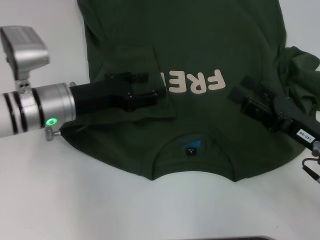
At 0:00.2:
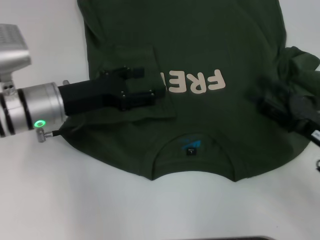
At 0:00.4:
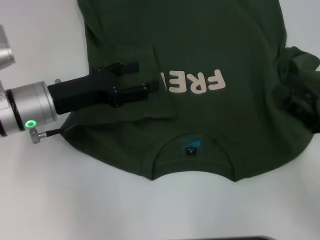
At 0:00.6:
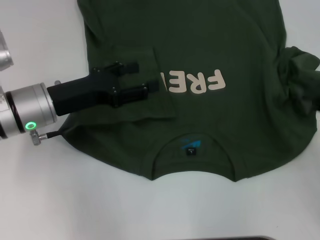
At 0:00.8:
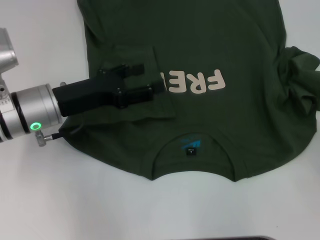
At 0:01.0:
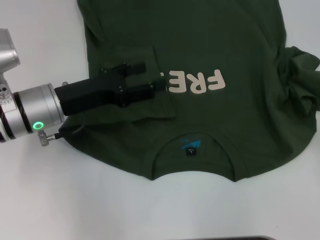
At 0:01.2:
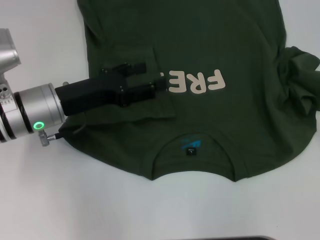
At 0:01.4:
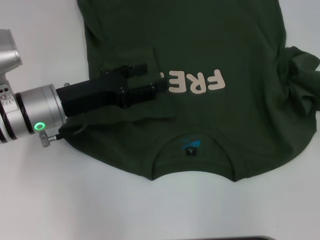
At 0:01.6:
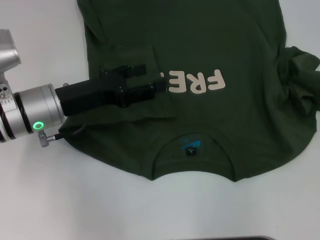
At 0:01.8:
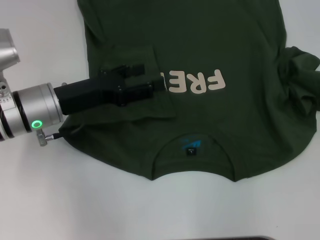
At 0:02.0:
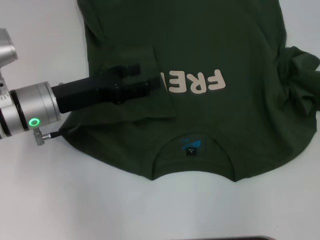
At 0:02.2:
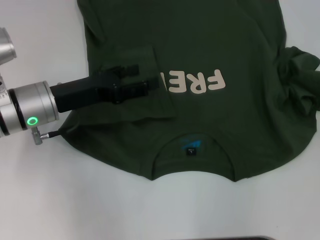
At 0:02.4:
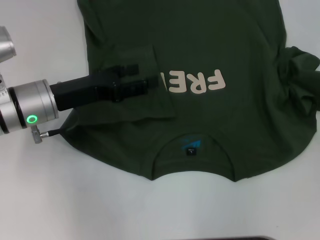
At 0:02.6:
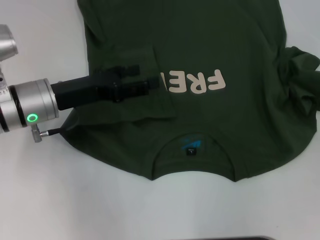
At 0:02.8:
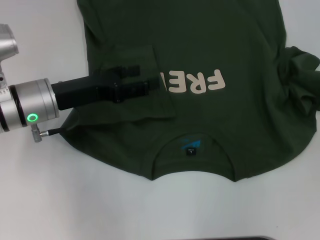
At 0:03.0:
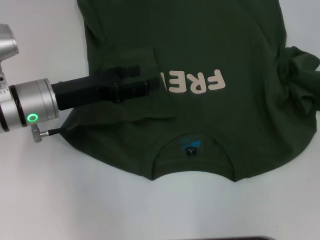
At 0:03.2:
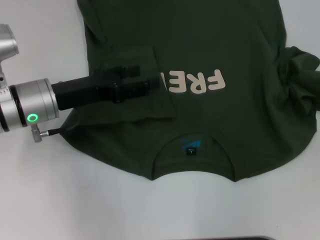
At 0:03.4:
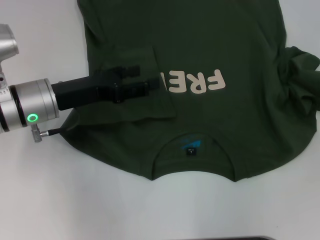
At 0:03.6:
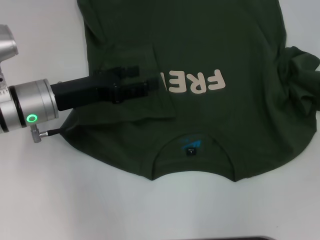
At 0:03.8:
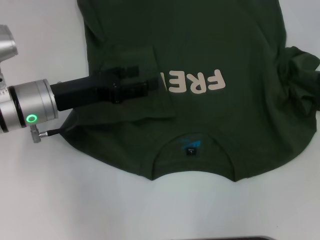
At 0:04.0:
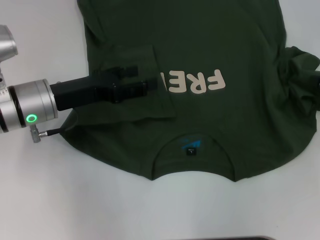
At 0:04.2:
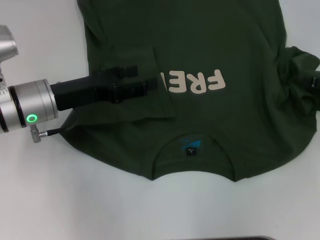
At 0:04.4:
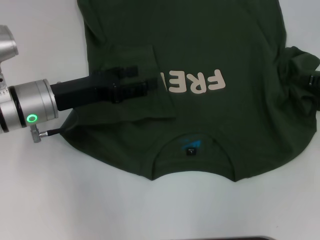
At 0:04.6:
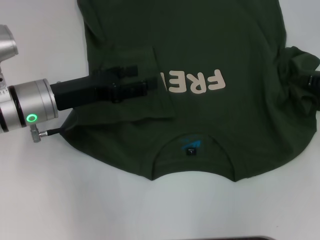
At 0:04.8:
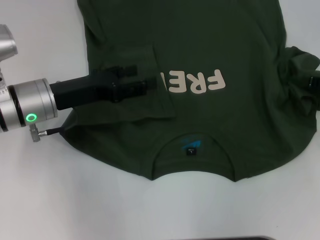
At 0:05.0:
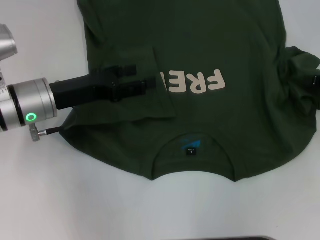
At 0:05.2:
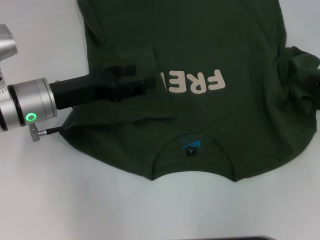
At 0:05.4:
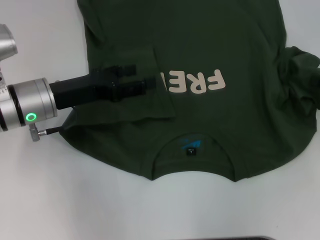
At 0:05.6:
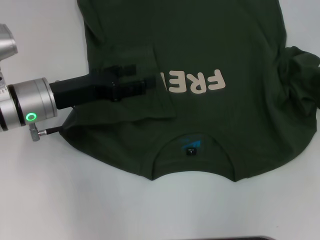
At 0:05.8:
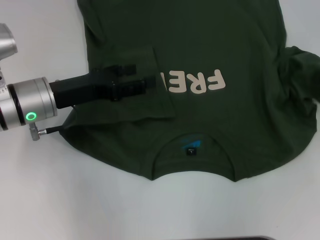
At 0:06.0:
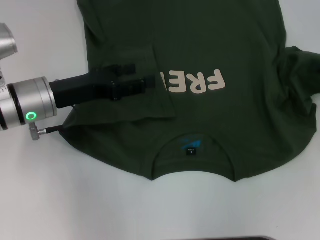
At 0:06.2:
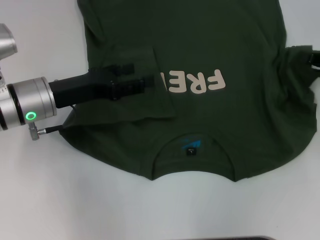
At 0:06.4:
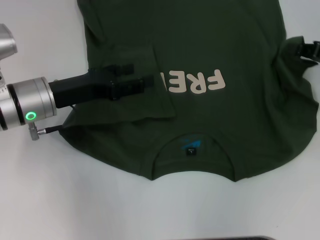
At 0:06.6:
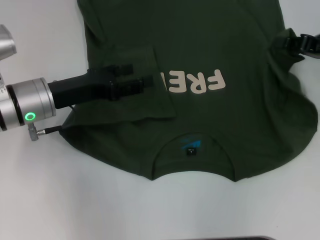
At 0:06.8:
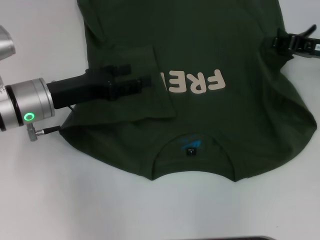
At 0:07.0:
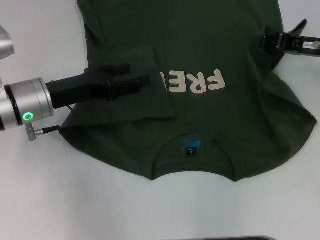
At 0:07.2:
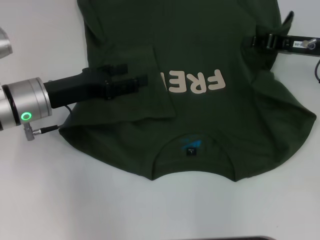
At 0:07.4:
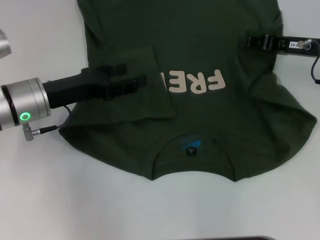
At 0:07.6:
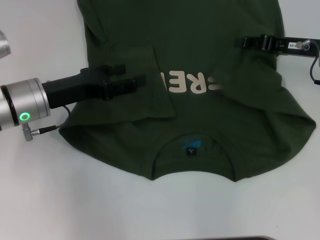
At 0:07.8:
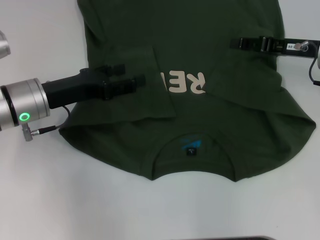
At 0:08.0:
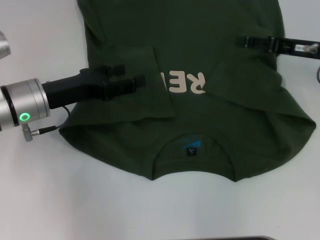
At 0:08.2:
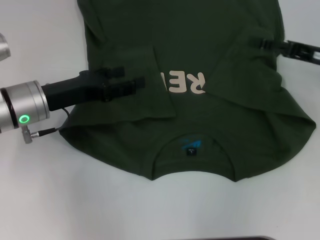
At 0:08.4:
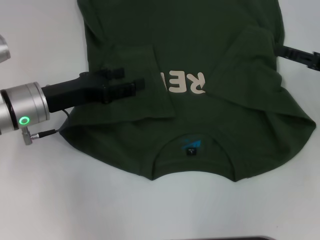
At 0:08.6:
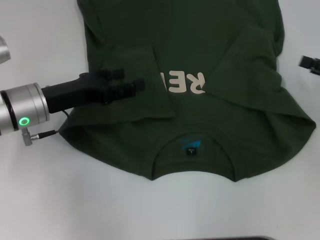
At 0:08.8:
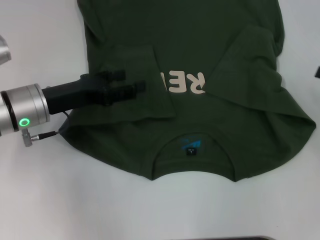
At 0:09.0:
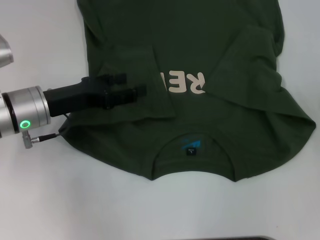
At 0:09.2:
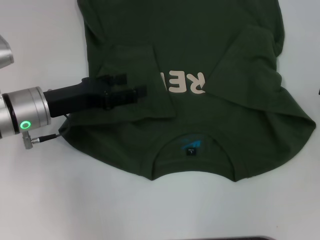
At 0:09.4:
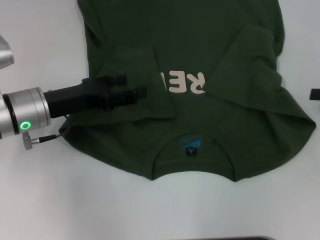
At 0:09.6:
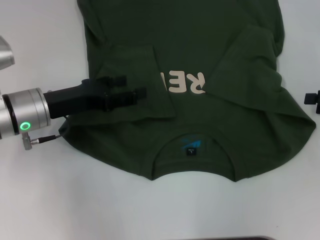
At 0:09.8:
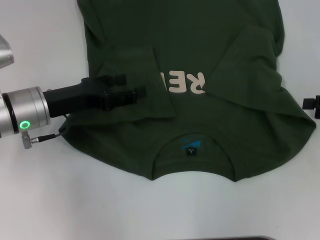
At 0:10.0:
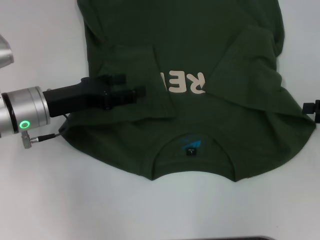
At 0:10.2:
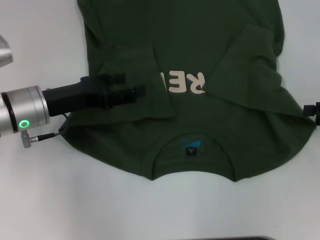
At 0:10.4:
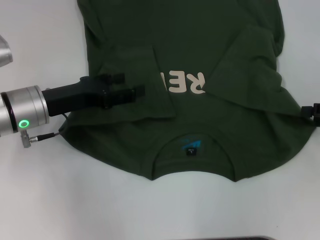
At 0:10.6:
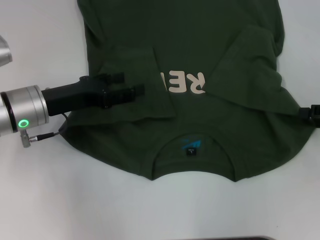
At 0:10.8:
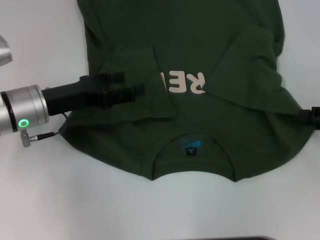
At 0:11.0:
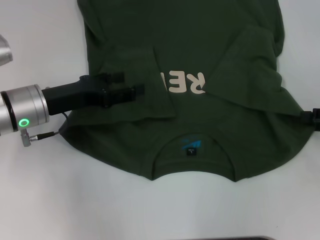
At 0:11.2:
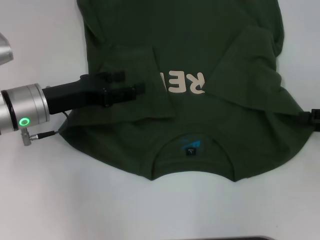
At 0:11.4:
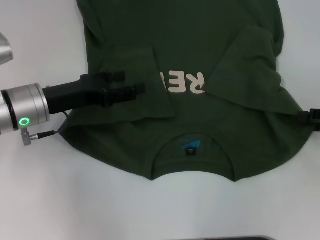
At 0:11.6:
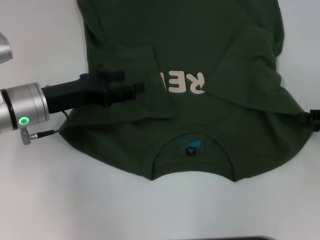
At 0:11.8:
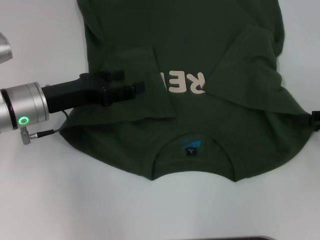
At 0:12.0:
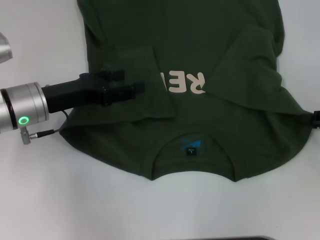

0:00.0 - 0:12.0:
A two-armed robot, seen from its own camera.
Step, 0:00.8 - 0:08.4: Fold the bottom right sleeve with your right hand.
0:00.0 - 0:01.6: The left gripper opens, while the right gripper is displaced to the right by about 15 cm.
0:06.0 - 0:07.6: The right gripper moves to the left and forward, roughly 10 cm.
0:07.6 - 0:09.0: The right gripper heads to the right and backward, covering about 15 cm, and opens its fingers.
0:09.0 - 0:10.4: The grippers move only a little.
0:10.4 - 0:12.0: Both grippers stay put.

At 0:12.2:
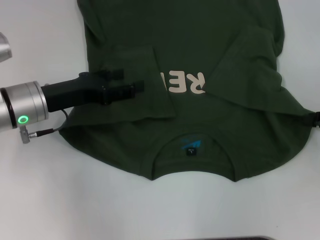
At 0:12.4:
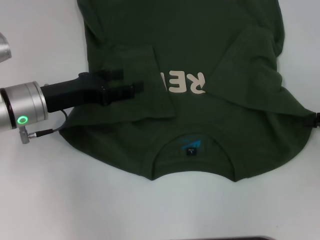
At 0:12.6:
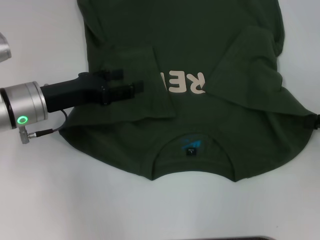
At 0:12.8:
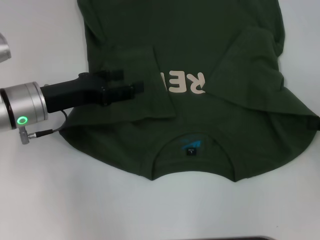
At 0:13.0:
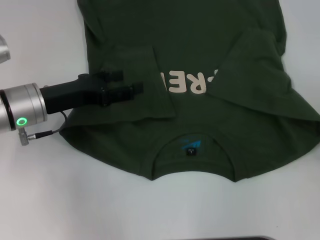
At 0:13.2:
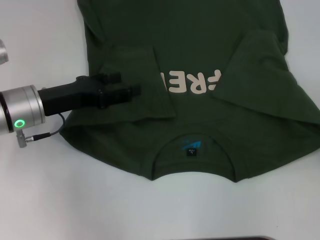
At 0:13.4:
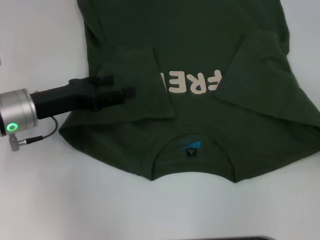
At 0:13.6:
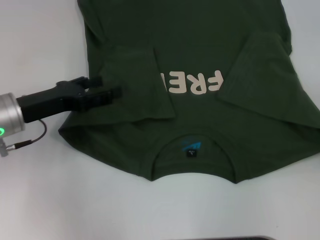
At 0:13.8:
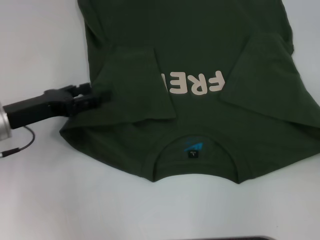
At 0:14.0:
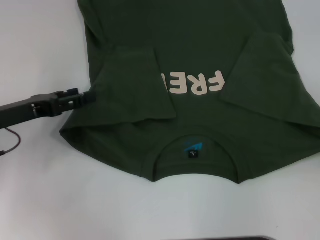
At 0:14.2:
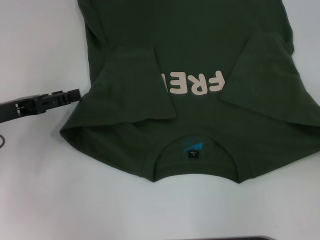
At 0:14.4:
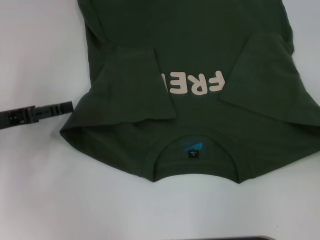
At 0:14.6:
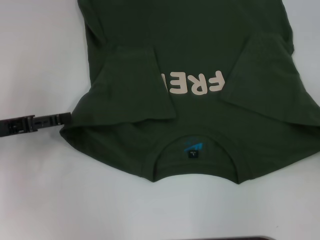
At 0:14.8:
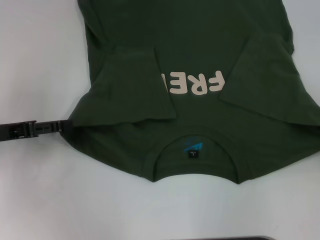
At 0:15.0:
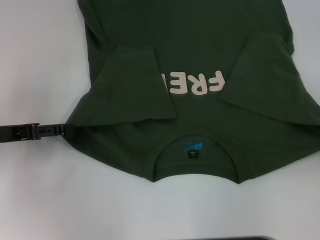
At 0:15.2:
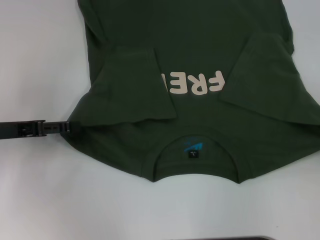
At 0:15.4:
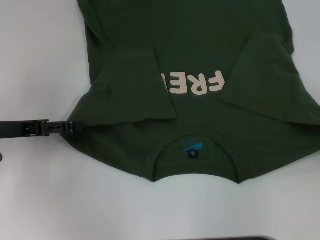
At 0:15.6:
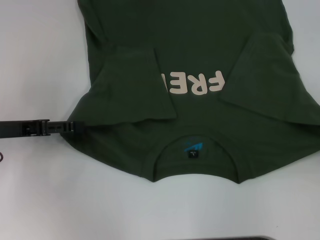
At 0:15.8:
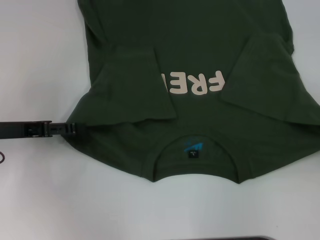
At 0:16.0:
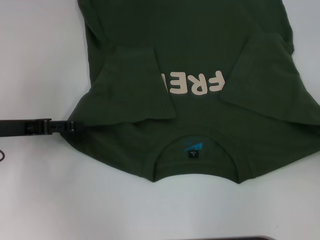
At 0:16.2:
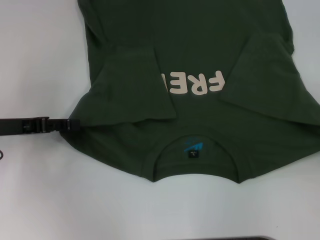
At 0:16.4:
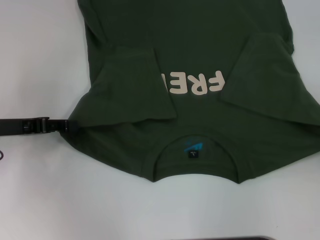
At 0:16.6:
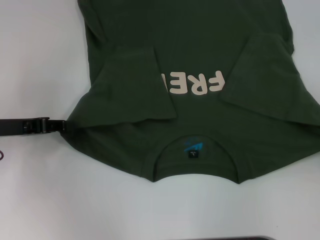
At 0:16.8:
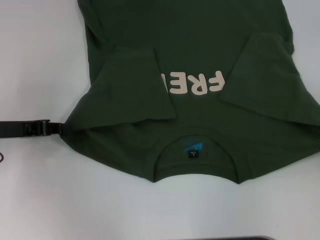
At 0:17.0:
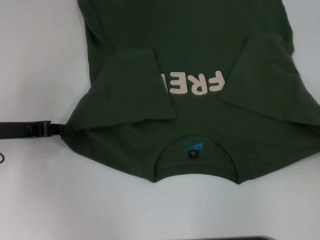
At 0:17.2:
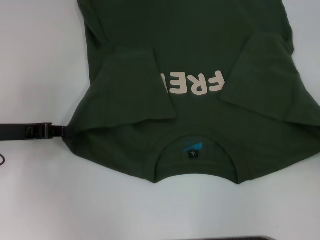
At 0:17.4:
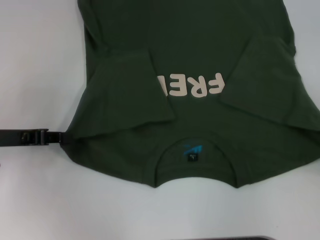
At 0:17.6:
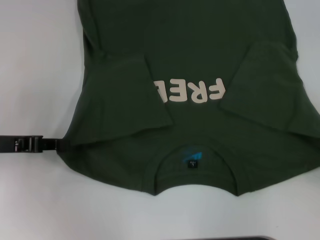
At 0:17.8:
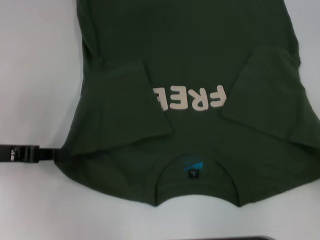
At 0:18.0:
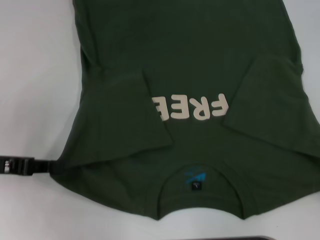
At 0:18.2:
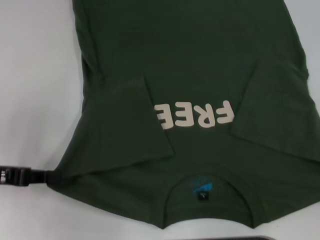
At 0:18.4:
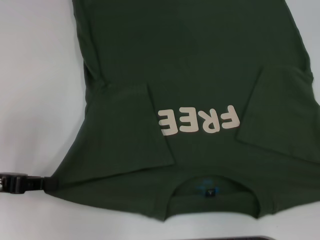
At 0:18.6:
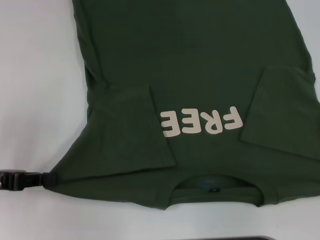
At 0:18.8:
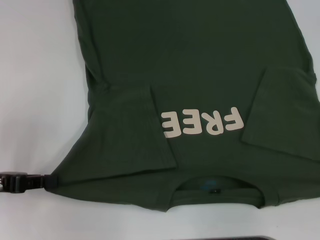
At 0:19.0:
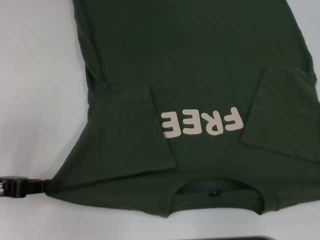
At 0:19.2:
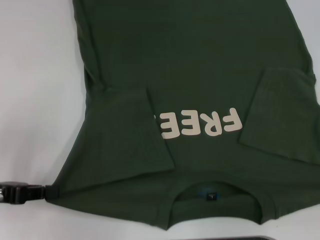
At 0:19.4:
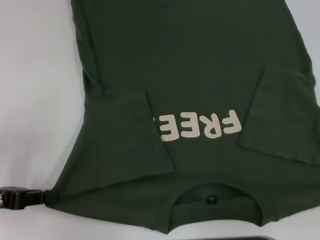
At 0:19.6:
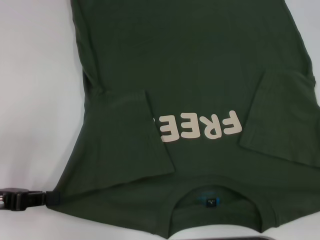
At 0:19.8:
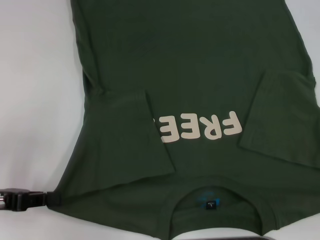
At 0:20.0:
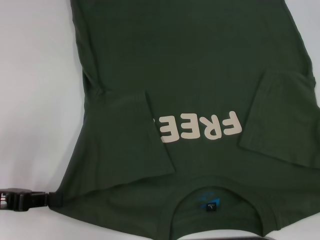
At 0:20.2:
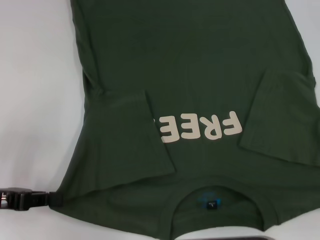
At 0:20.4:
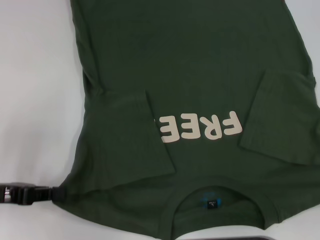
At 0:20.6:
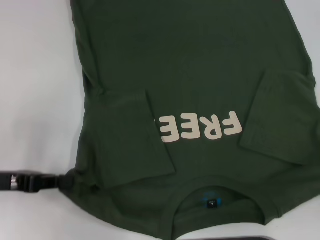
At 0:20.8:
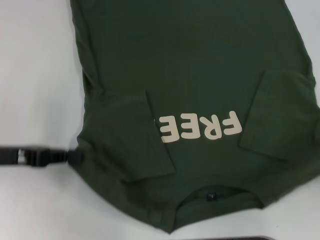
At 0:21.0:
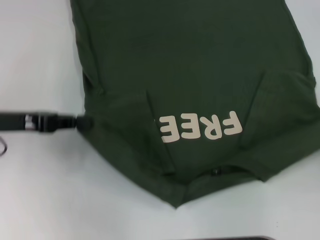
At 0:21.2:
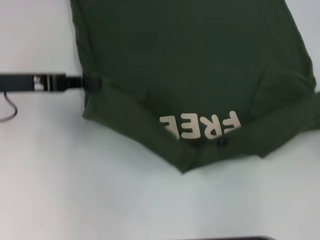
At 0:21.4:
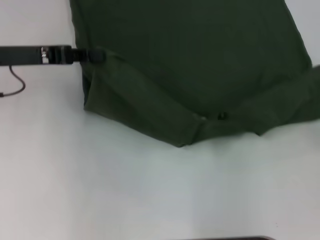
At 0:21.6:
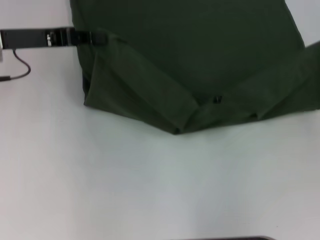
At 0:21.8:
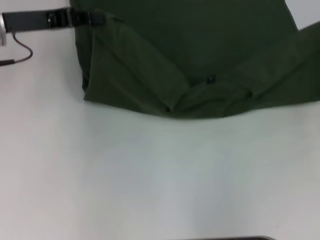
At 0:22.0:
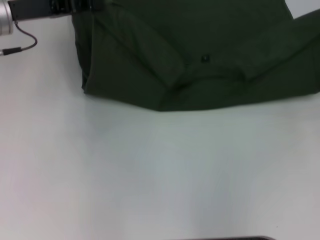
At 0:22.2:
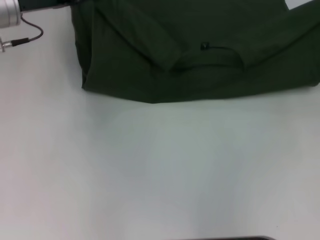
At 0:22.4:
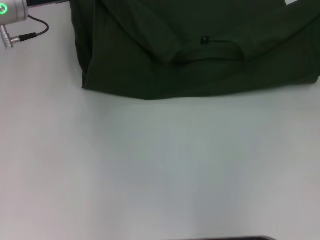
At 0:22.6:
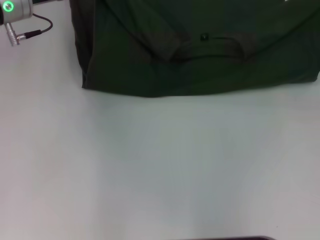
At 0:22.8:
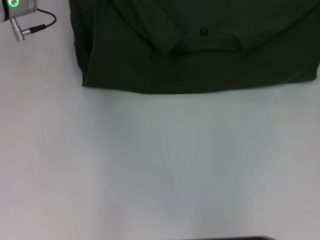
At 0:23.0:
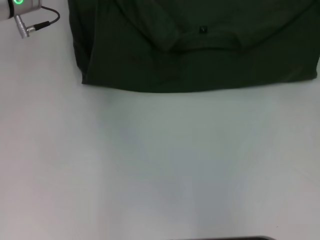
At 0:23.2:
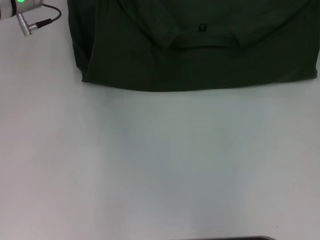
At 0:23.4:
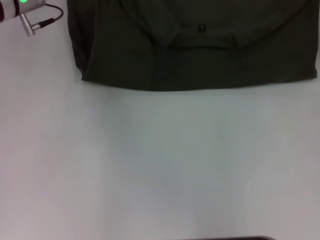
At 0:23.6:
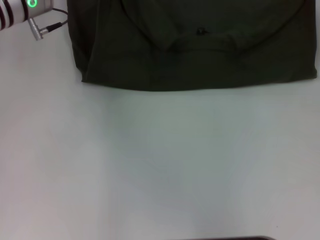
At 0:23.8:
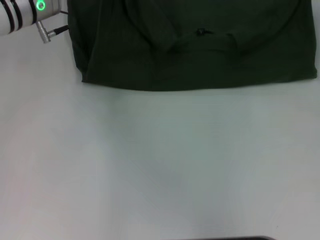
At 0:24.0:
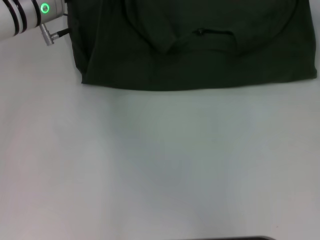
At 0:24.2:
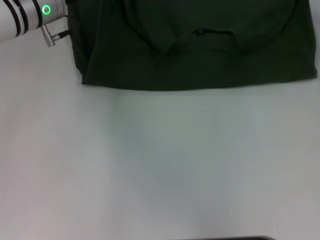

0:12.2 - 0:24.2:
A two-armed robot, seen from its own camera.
Step, 0:14.0 - 0:18.0: Grab the bottom left corner with your left hand.
0:12.2 - 0:13.8: The right gripper goes some 5 cm backward; the left gripper changes place by roughly 5 cm.
0:15.2 - 0:16.6: The left gripper closes up.
0:16.6 - 0:18.2: The right gripper goes about 10 cm backward. Meanwhile the left gripper moves backward, about 5 cm, and closes up.
0:18.2 - 0:19.8: The grippers make only small movements.
0:19.8 - 0:21.2: The left gripper moves forward, upward and to the right, approximately 15 cm, while the right gripper travels forward by some 15 cm.
0:21.2 - 0:22.6: The right gripper is displaced forward by some 15 cm. The left gripper moves forward and to the right, about 10 cm.
0:22.6 - 0:24.2: The right gripper heads to the left, covering some 5 cm.
